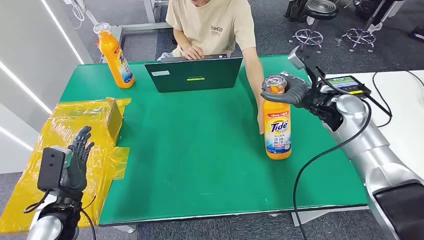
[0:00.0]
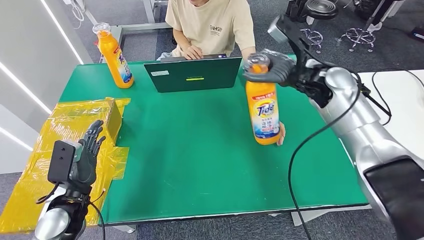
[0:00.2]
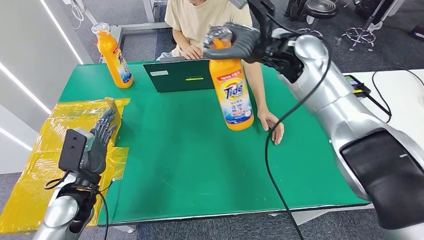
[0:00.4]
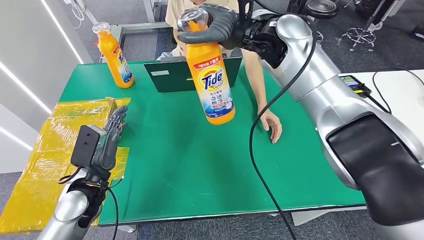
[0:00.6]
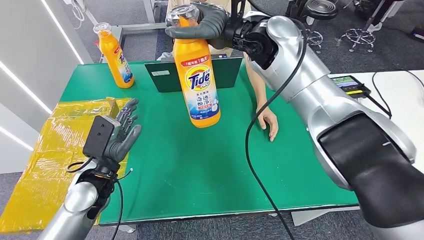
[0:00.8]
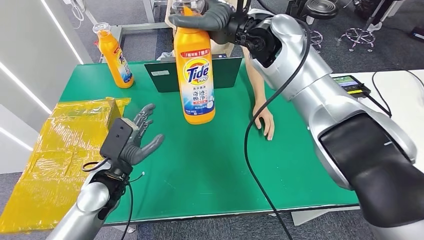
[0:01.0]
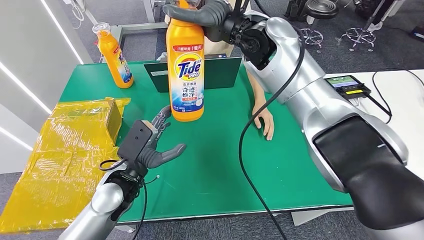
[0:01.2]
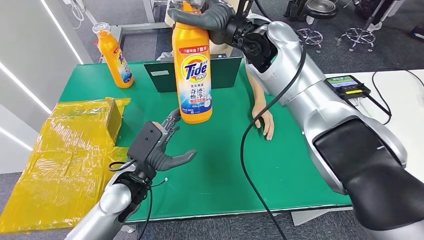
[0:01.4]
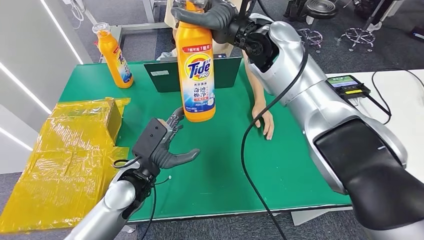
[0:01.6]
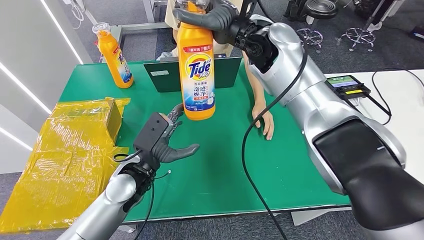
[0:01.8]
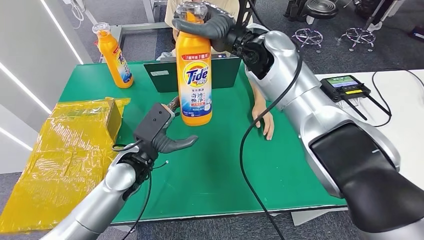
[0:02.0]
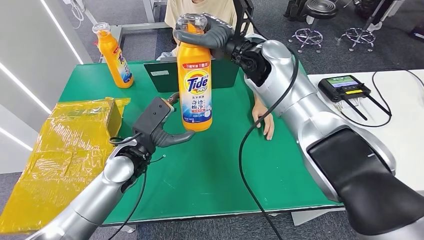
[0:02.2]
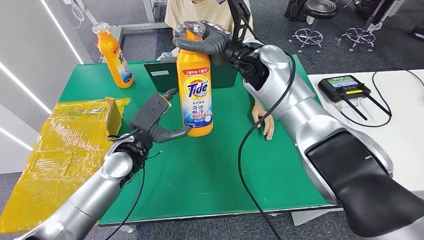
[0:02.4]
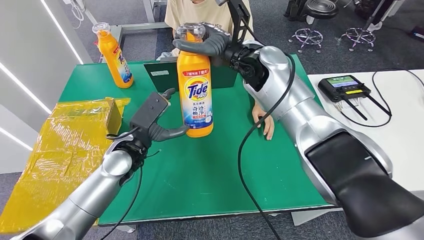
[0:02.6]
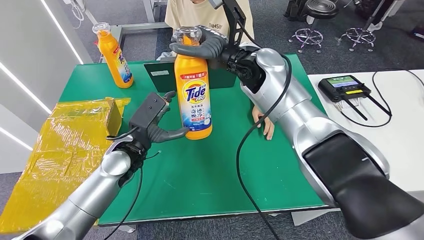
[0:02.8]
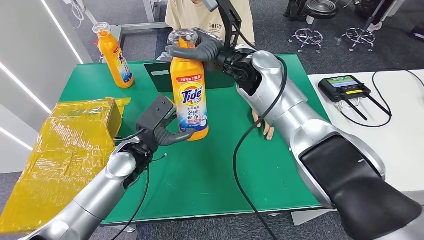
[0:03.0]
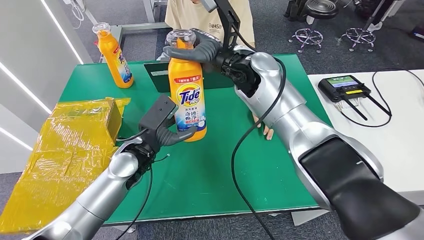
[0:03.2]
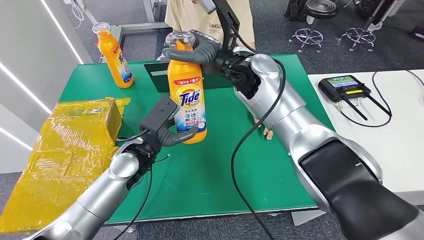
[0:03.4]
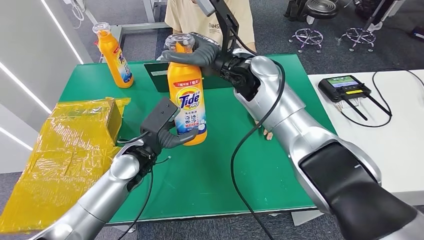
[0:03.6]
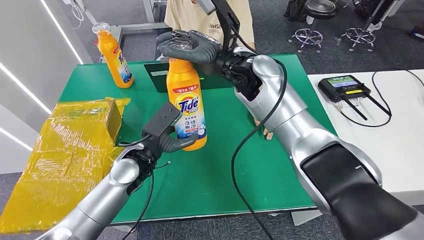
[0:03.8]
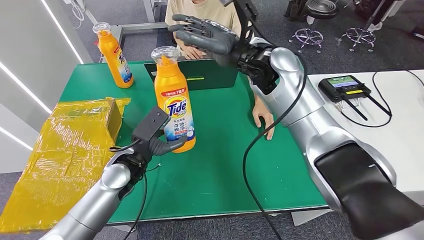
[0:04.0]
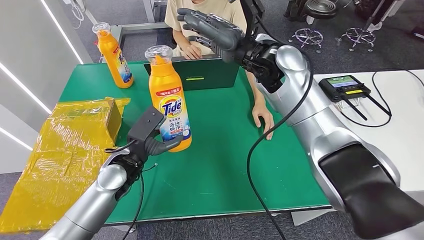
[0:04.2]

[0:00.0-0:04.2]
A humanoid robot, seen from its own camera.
Step, 0:00.0 to 0:01.2: Pick up the bottle from the table.
Step, 0:01.4 to 0:04.2: Turn the bottle to the front side.

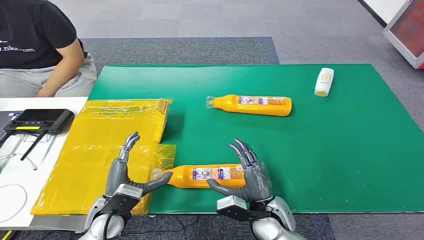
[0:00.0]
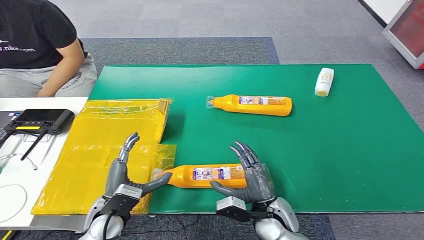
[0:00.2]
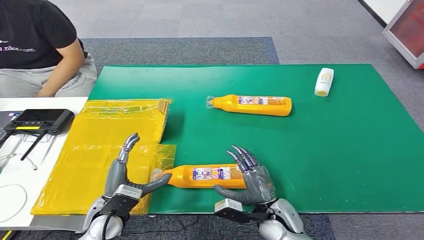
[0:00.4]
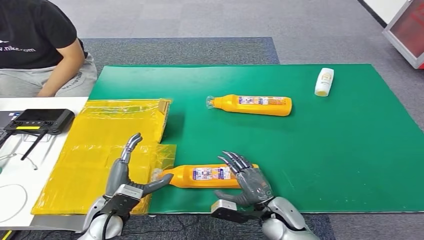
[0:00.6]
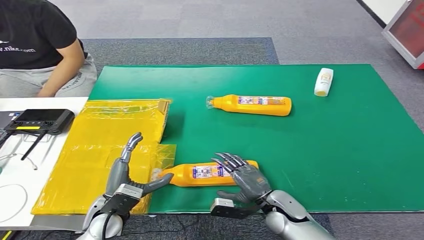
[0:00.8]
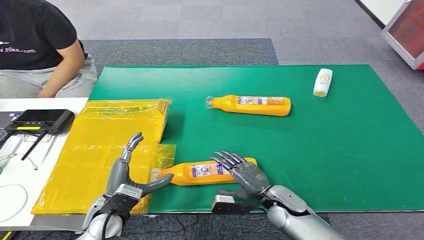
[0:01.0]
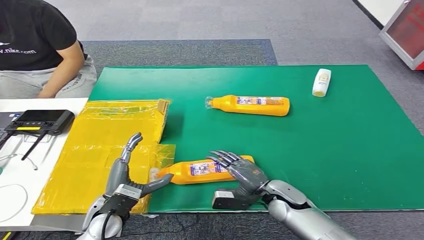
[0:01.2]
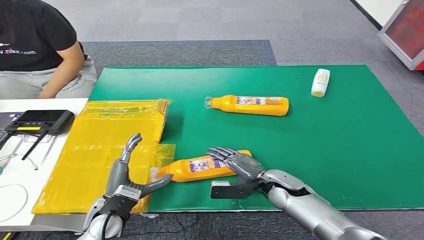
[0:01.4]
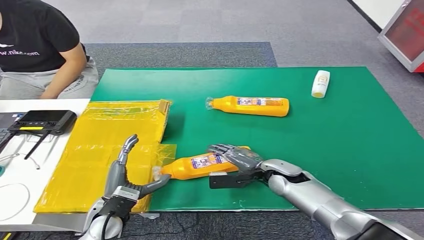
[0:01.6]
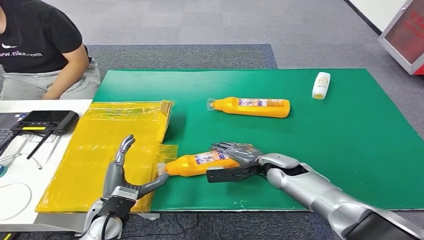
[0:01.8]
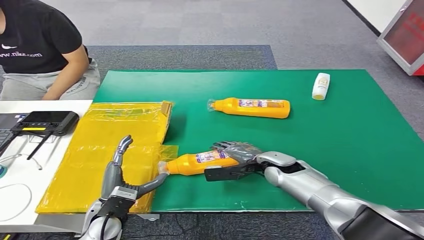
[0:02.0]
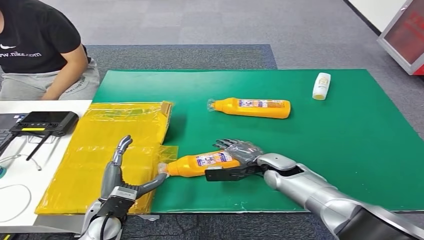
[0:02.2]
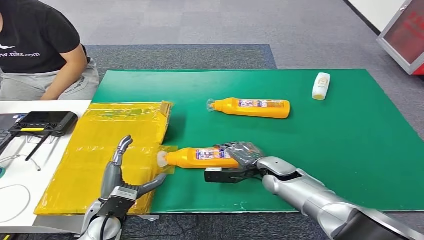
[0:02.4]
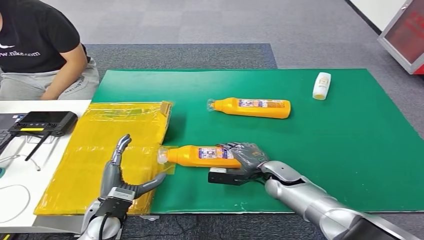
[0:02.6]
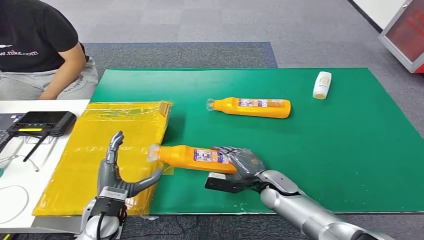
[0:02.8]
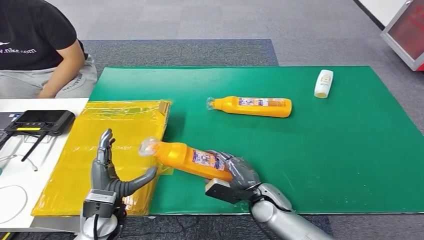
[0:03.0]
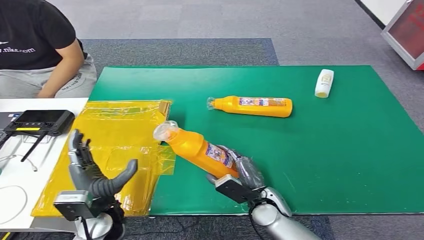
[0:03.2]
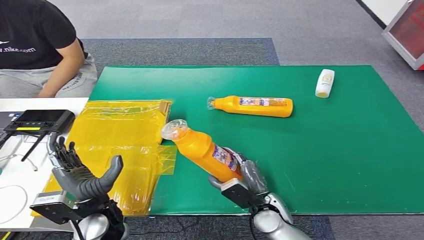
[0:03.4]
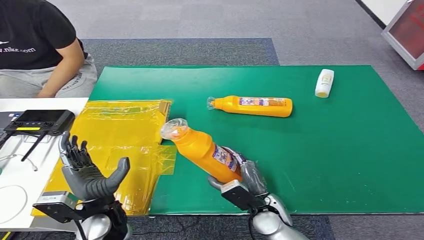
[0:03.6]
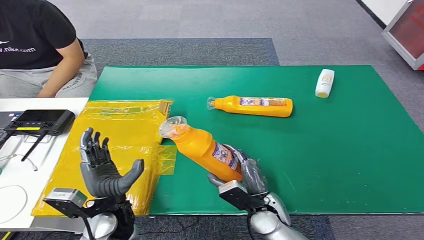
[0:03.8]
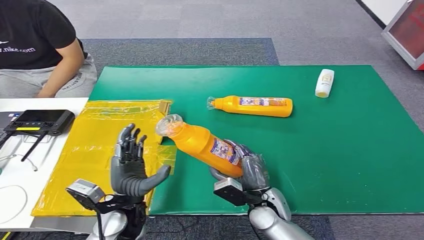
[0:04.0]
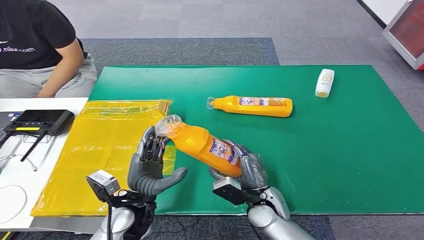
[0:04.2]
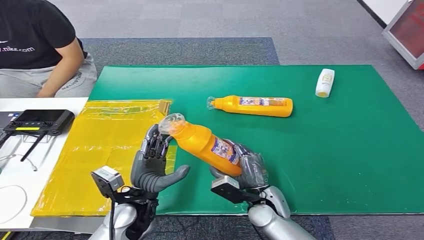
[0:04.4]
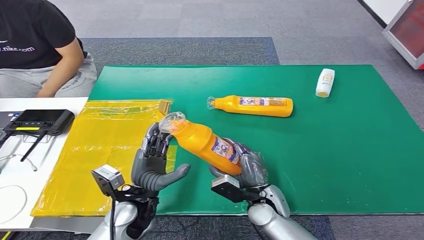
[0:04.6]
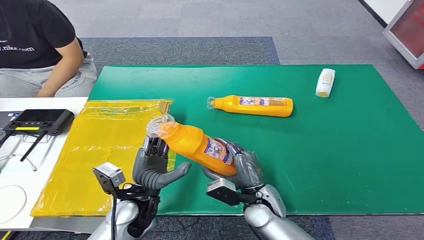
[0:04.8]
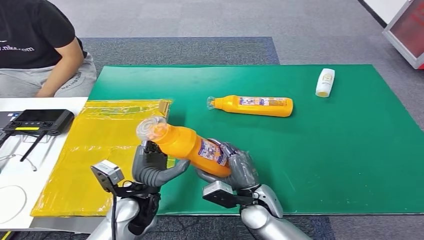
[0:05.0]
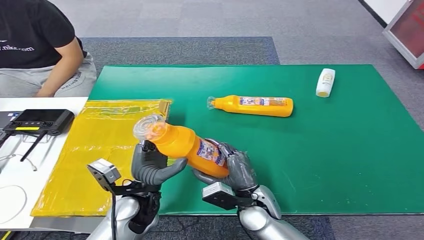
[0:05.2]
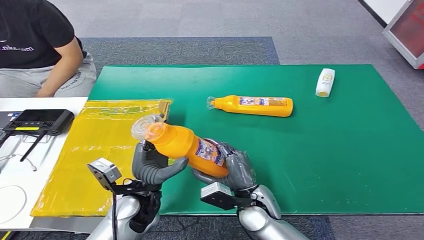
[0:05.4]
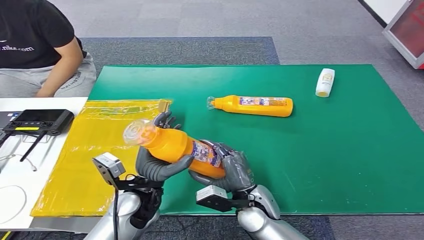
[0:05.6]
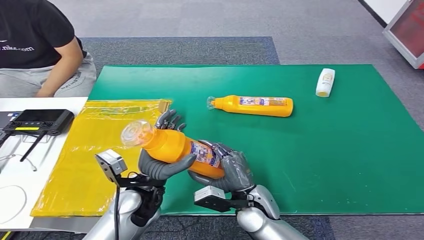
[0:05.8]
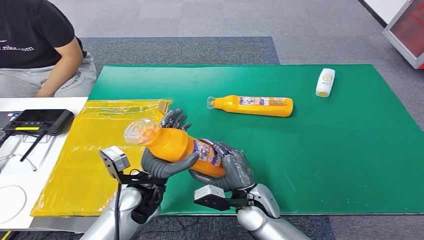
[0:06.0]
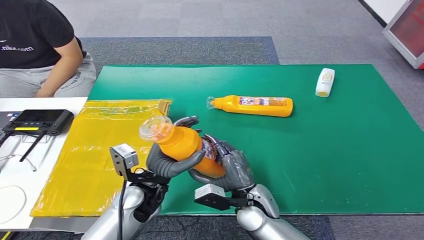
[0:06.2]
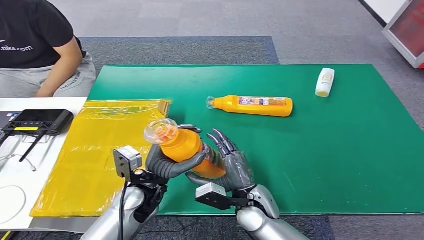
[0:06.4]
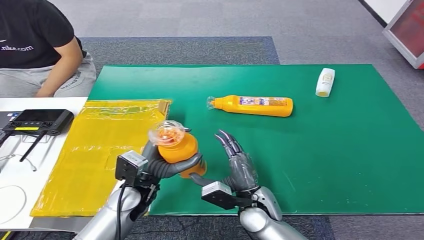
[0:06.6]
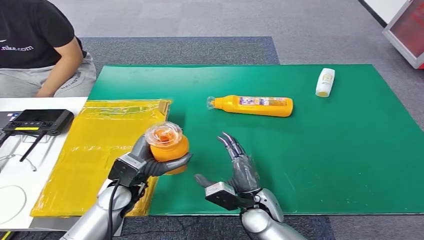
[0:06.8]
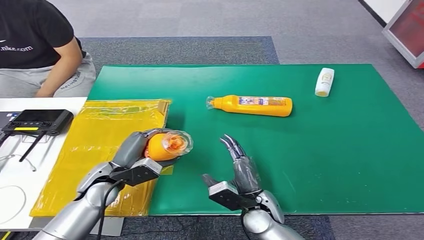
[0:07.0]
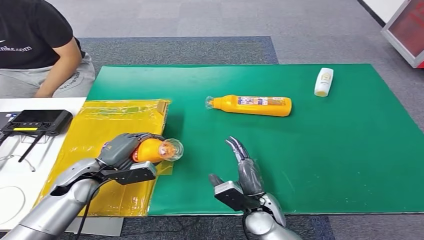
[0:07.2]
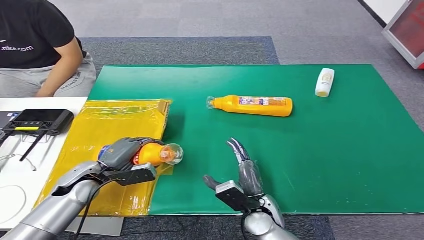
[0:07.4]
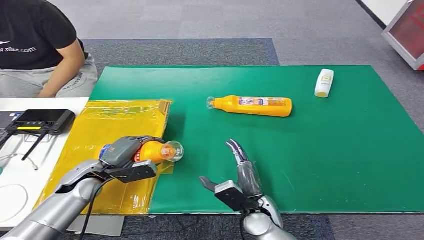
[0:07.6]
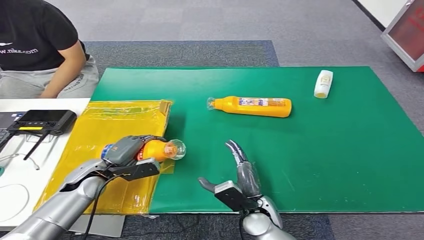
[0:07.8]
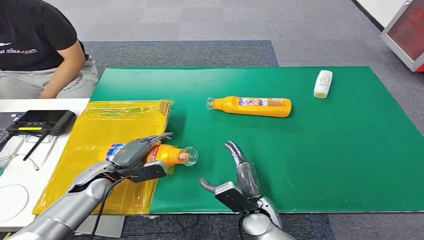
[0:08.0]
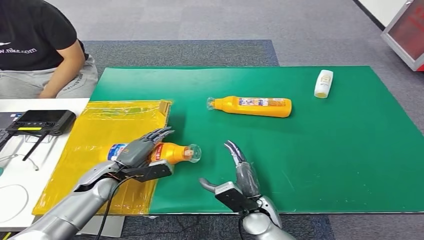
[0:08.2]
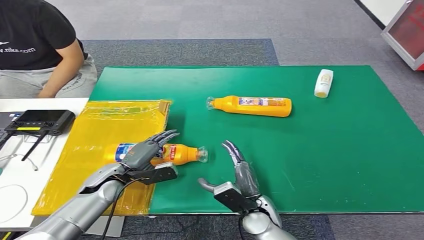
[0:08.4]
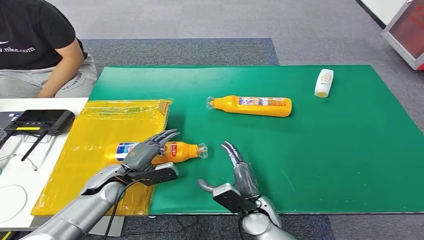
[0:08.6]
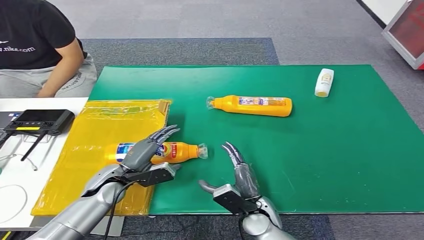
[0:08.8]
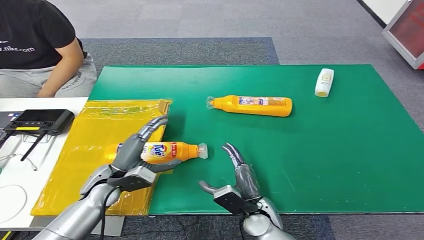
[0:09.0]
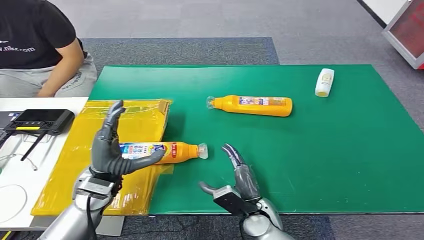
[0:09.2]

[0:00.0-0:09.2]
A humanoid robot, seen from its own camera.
Step, 0:00.0 to 0:03.4: Pick up the bottle from the table.
Step, 0:03.6 to 0:09.0: Turn the bottle to the front side.
0:03.0 to 0:04.6: The left hand moves to the right, roughly 5 cm.
0:04.6 to 0:06.2: There are only small adjustments of the hands.
0:06.2 to 0:07.6: The left hand heads to the left, covering about 15 cm.
0:07.6 to 0:09.2: The left hand moves to the right and upward, some 10 cm.
